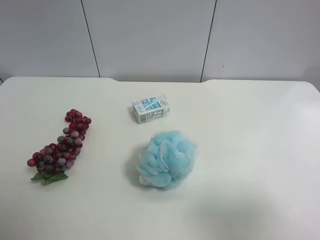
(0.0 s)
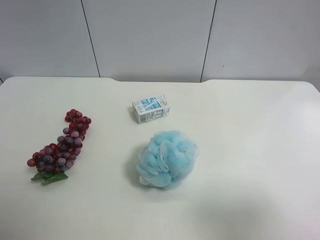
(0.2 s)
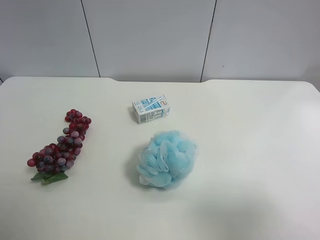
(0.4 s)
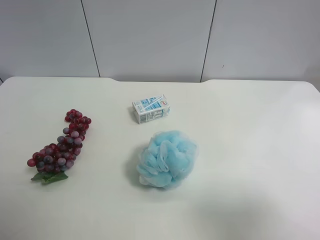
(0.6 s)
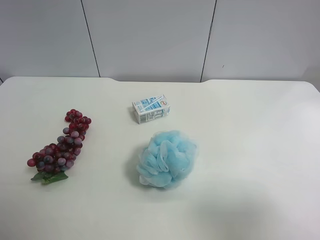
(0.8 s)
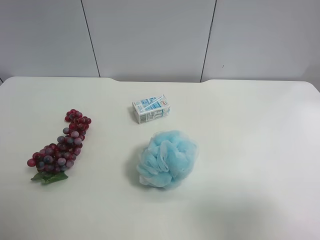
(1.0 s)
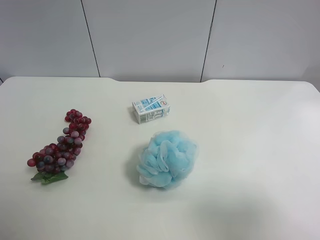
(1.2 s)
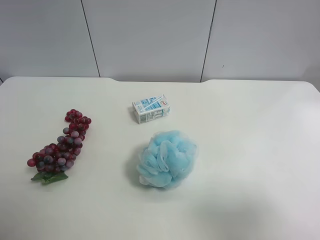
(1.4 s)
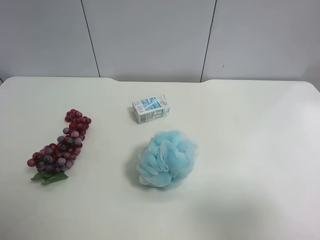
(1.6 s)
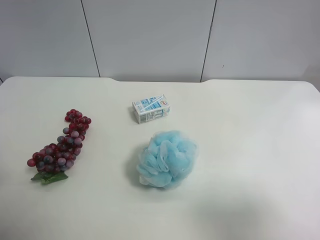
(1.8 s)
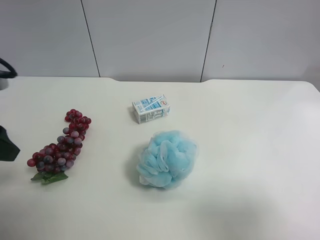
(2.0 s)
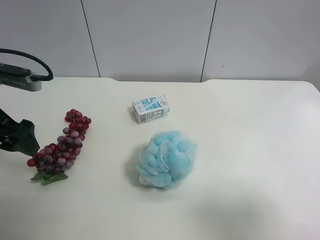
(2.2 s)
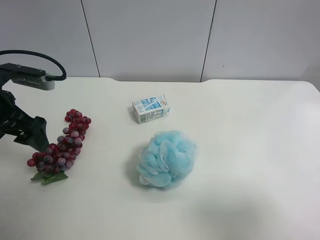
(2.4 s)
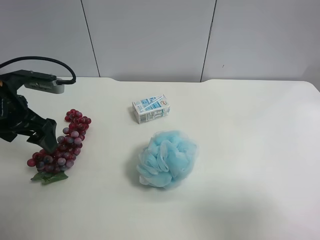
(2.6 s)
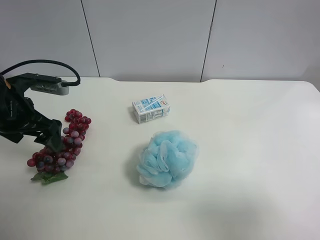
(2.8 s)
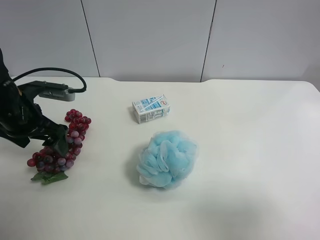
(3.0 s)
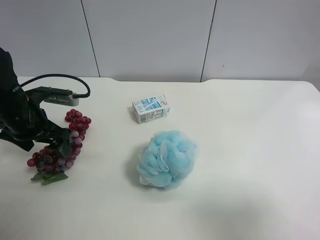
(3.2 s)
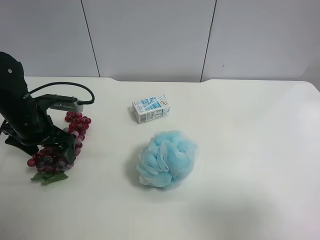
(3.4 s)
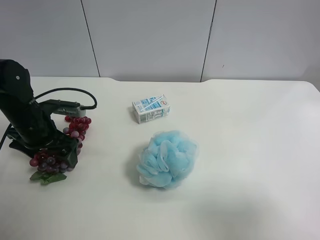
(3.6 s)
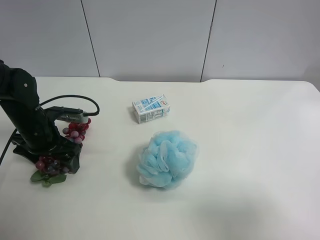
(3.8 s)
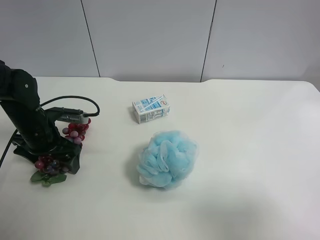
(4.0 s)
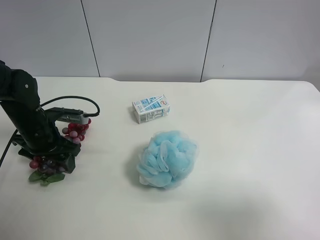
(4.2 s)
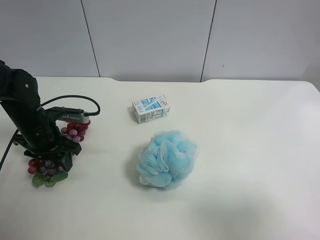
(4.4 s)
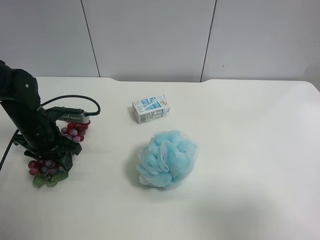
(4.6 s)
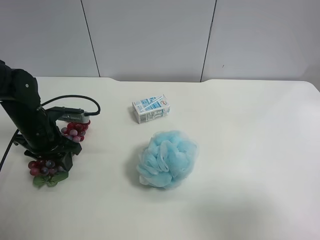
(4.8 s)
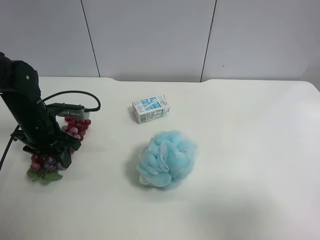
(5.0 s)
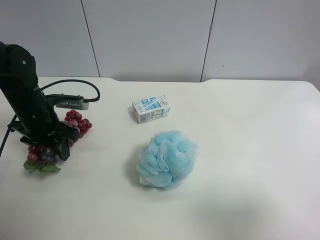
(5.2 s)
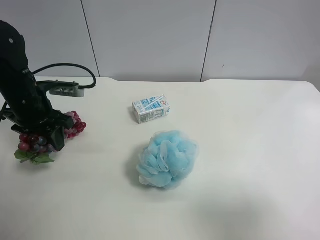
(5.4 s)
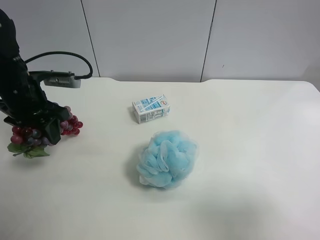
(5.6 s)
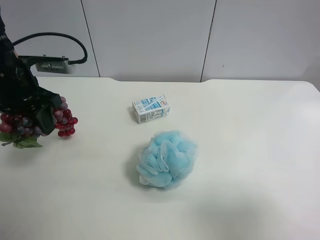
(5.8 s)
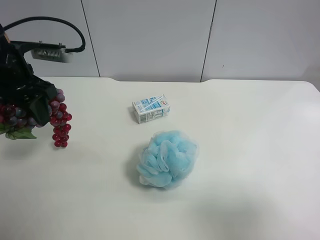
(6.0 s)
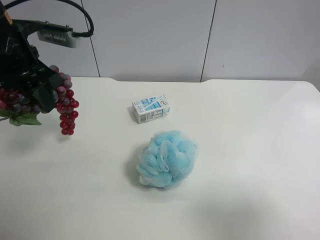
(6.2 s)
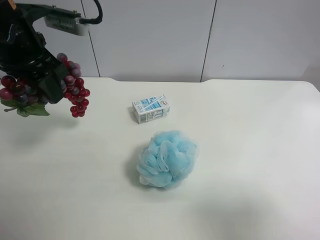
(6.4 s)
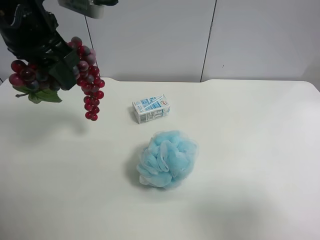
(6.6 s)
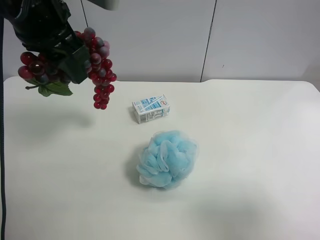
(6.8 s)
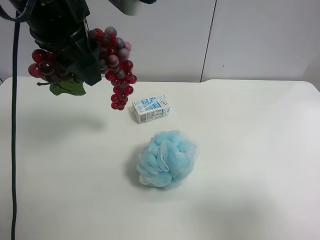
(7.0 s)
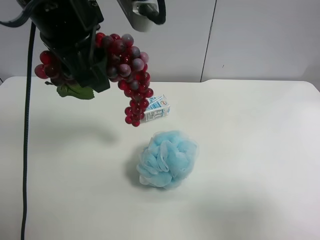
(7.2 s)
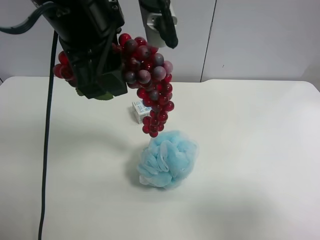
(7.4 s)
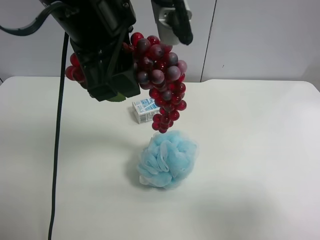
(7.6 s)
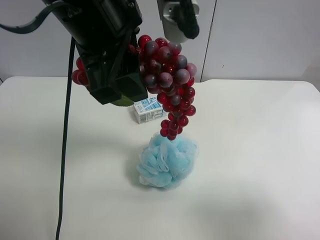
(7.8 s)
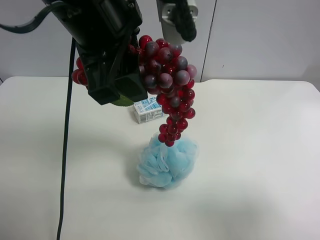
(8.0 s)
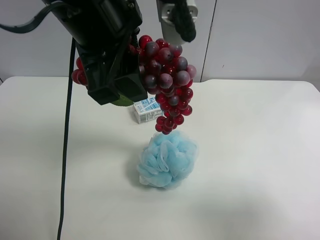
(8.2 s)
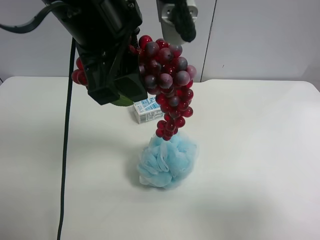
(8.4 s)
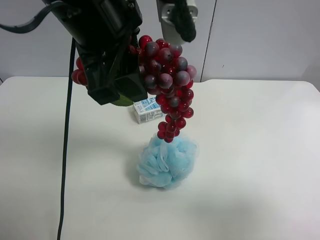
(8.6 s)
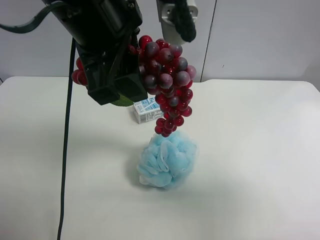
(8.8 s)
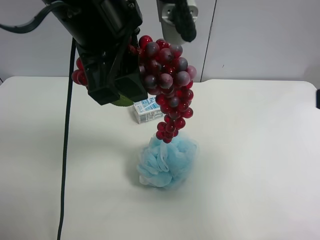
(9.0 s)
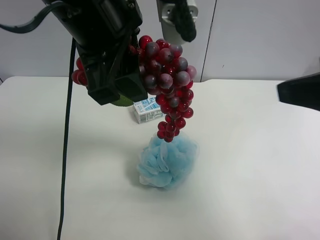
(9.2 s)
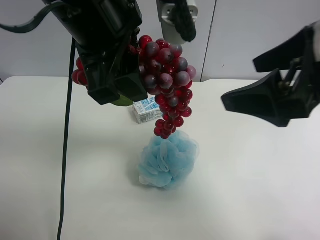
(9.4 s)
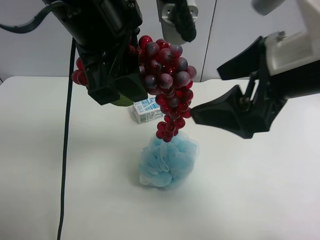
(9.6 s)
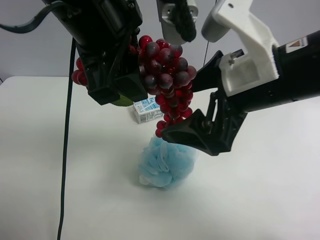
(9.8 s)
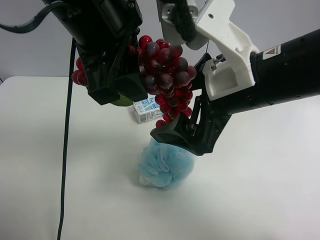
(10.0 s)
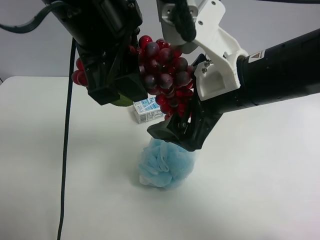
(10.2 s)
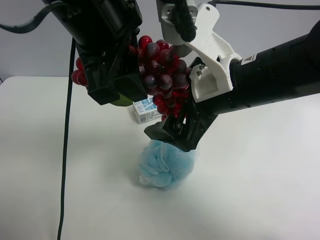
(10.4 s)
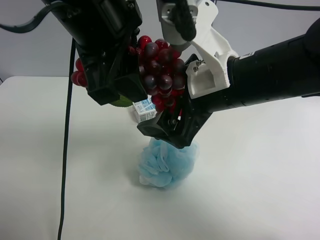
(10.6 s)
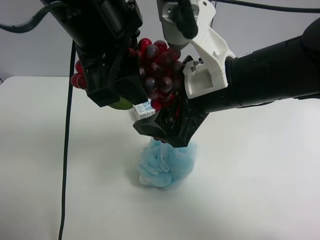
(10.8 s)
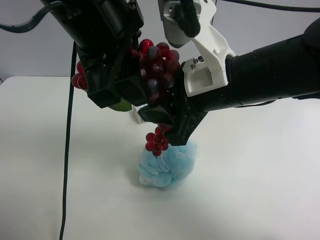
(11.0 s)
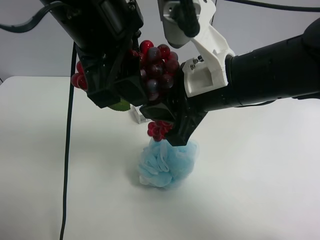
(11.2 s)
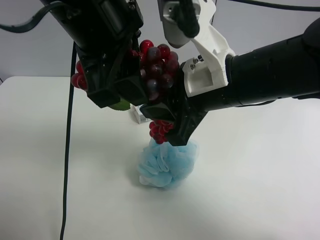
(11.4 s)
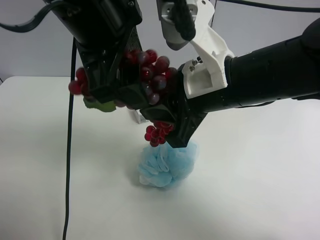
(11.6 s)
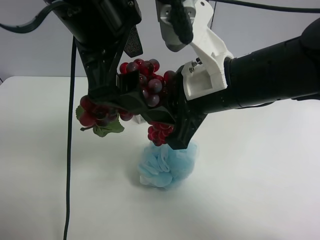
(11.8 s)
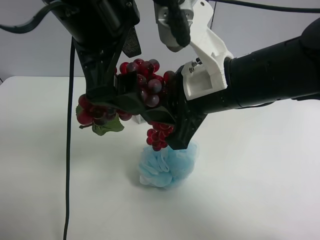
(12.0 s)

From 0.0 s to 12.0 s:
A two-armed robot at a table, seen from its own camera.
Task of the whole recording: use the left gripper to pick up the item and transfer it from the left gripper to the right gripper.
From 1.6 s to 3.0 s: The left gripper travels forward and downward by approximately 25 cm.
From 3.0 s to 4.4 s: The left gripper moves downward, some 5 cm, and closes its fingers.
From 4.4 s to 6.0 s: The left gripper moves upward, approximately 15 cm.
From 6.0 s to 7.6 s: The left gripper travels to the right, upward and backward by roughly 20 cm.
From 7.6 s to 9.0 s: The right gripper goes about 10 cm forward and upward.
From 9.0 s to 10.4 s: The right gripper moves to the left, forward and downward, roughly 20 cm.
From 10.4 s to 12.0 s: The right gripper closes. Meanwhile the left gripper opens up.

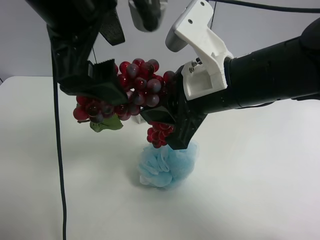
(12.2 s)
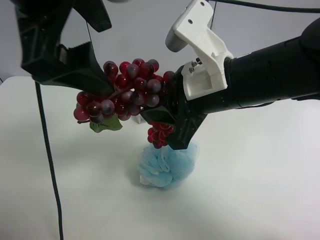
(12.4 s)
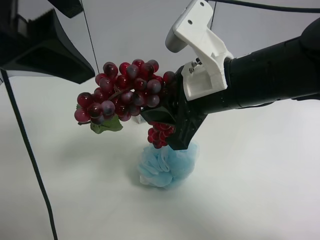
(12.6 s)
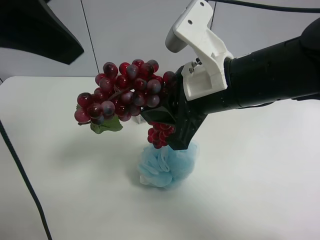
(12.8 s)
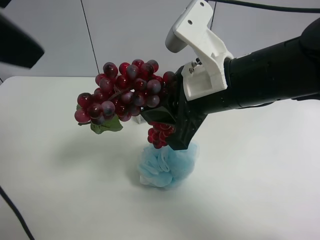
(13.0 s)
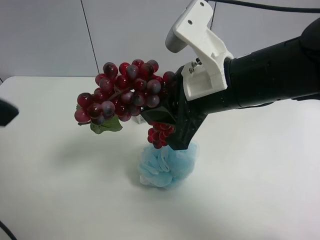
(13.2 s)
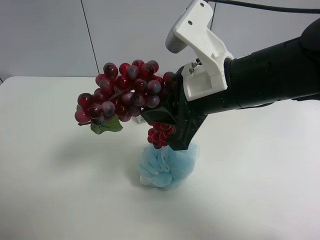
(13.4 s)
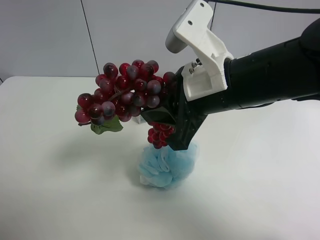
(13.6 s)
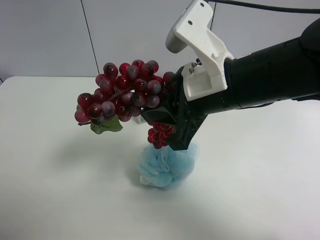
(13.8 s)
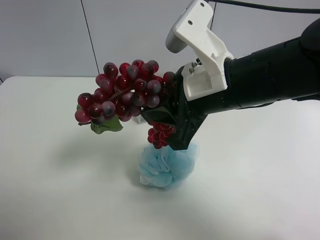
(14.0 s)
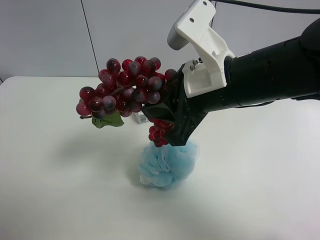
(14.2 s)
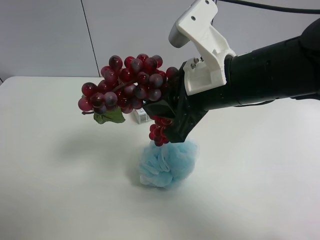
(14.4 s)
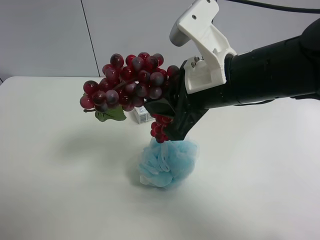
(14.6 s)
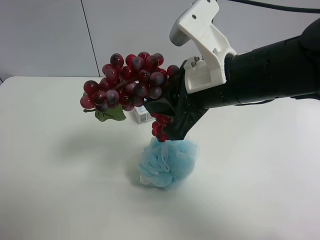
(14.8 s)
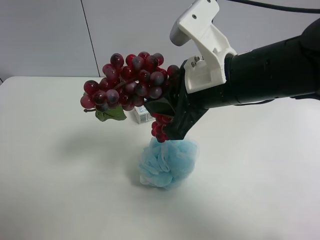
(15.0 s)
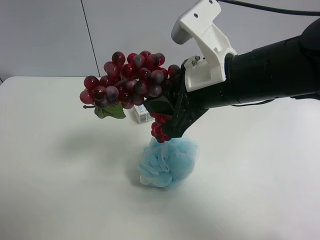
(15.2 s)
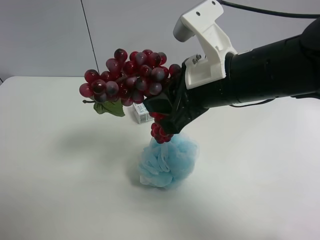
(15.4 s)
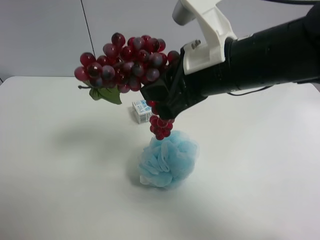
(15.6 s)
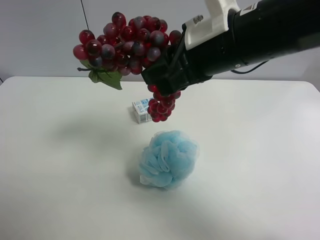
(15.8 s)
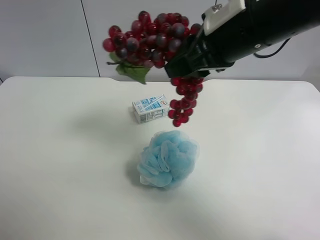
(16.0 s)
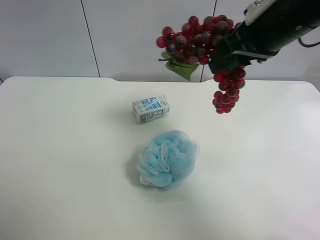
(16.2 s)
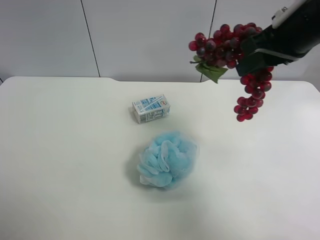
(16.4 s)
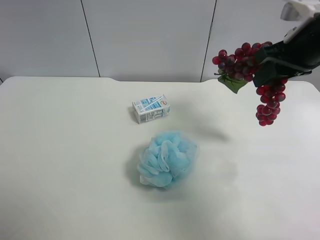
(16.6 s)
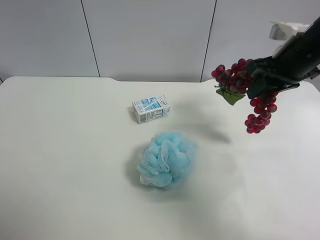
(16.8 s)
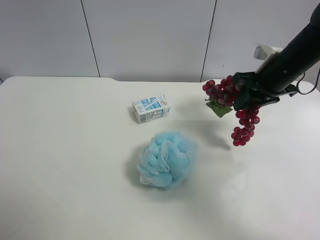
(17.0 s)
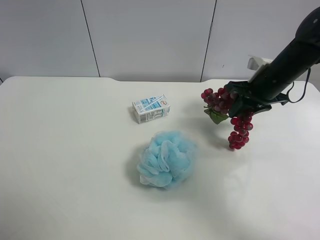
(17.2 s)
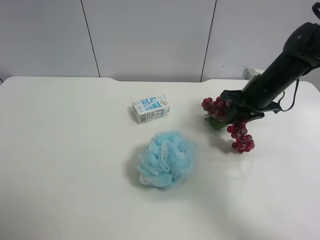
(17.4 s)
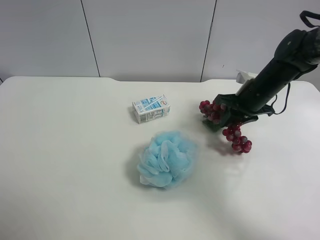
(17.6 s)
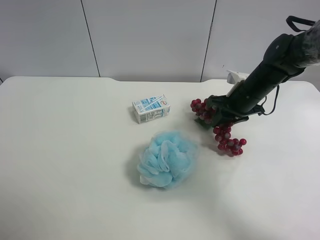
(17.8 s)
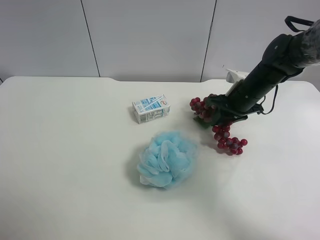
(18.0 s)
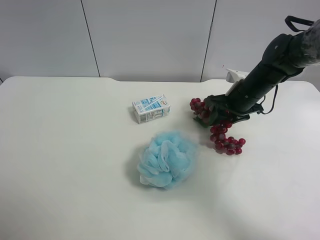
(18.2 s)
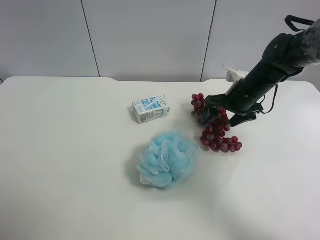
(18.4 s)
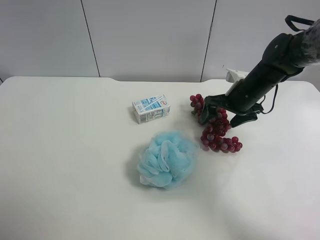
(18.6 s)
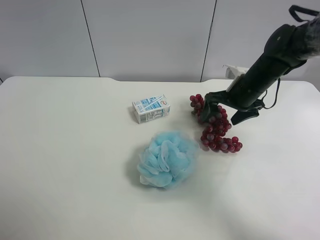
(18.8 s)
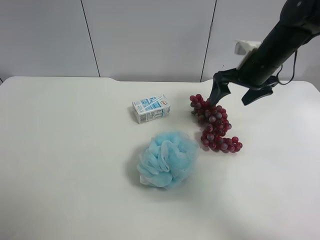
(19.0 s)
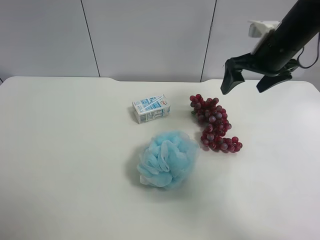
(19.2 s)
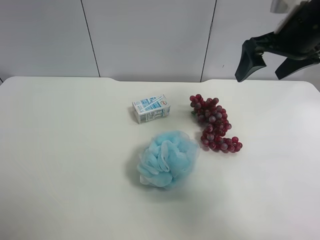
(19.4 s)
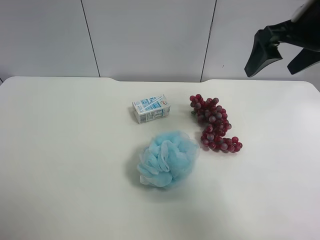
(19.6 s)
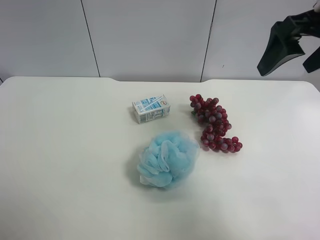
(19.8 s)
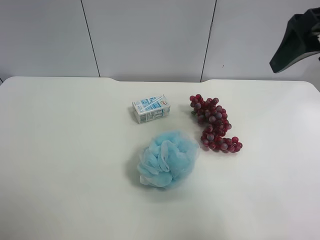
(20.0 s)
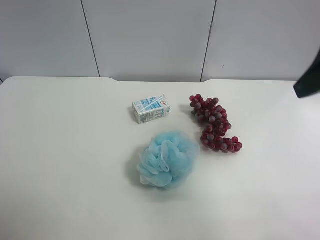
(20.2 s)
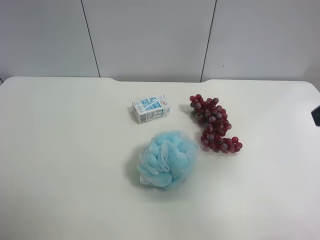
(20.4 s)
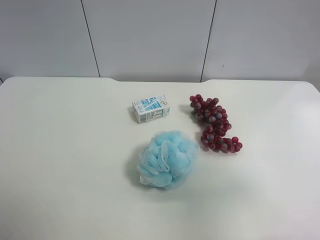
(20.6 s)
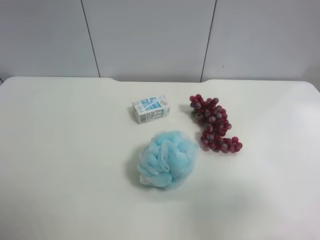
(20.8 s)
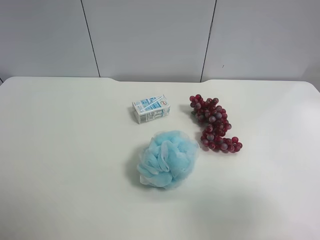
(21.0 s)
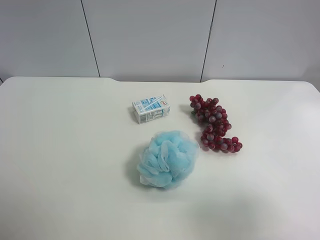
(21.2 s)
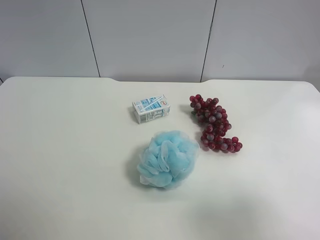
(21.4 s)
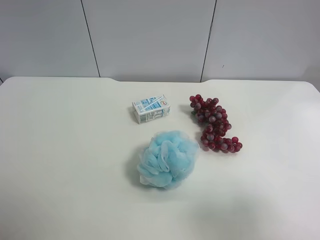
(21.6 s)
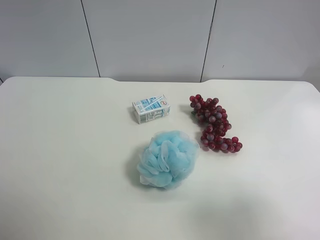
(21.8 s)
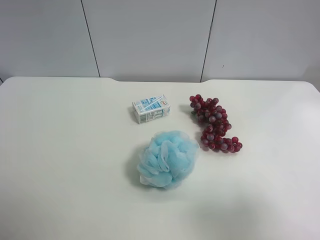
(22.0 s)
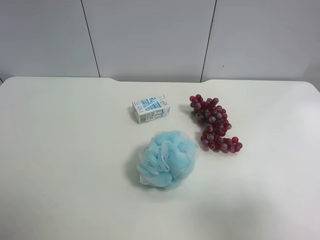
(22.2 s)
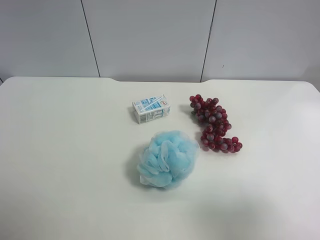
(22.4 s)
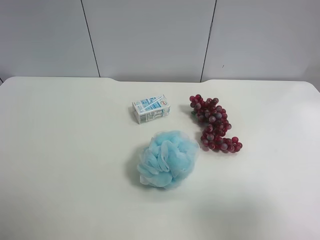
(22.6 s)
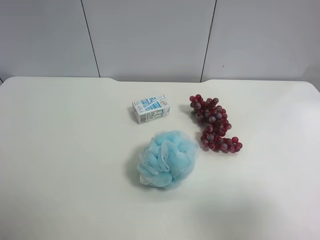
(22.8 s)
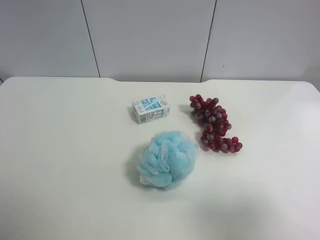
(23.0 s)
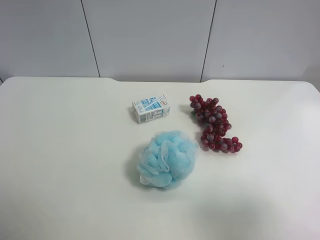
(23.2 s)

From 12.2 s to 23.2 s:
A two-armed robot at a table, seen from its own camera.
Task of the whole recording: use the left gripper to pick up the item and transfer it from the left gripper to the right gripper.
From 12.2 s to 13.8 s: The left gripper travels to the left, backward and downward by some 25 cm.
From 13.8 s to 15.4 s: The left gripper ends up approximately 5 cm from where it was.
From 15.4 s to 17.0 s: The right gripper heads to the right and forward, covering about 20 cm.
From 17.0 s to 18.4 s: The right gripper moves downward, roughly 5 cm, and opens up.
From 18.4 s to 20.0 s: The right gripper moves upward and backward, some 25 cm.
From 20.0 s to 21.6 s: The right gripper goes about 25 cm backward and downward.
